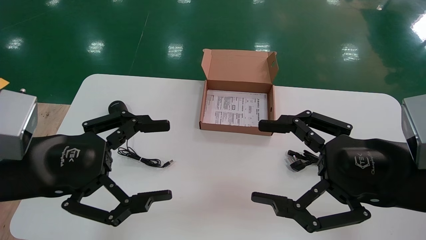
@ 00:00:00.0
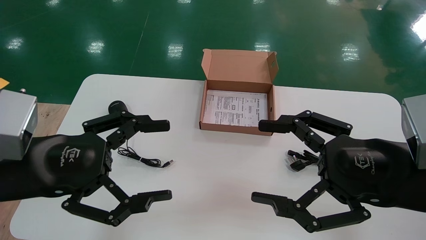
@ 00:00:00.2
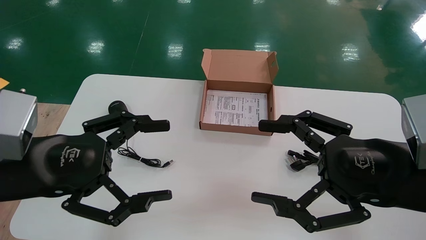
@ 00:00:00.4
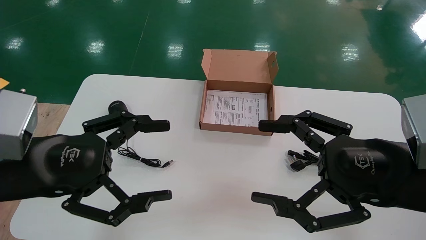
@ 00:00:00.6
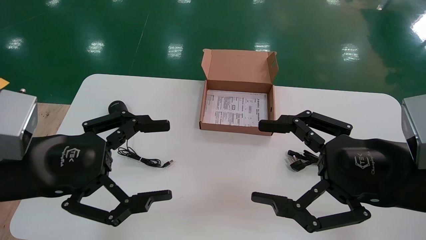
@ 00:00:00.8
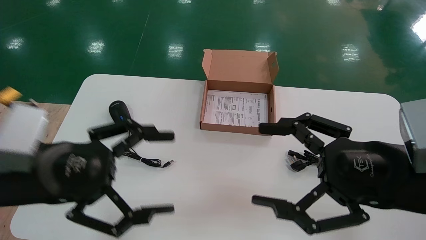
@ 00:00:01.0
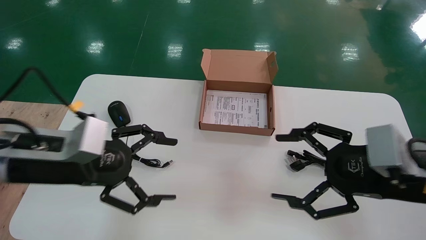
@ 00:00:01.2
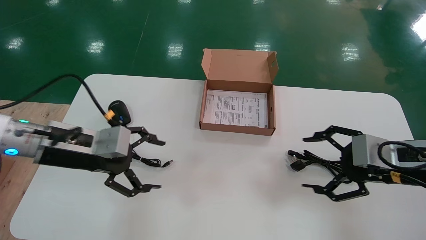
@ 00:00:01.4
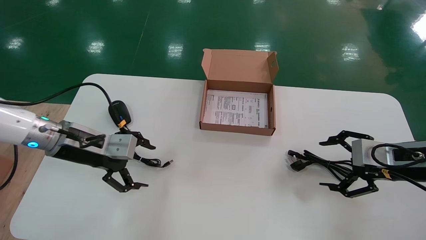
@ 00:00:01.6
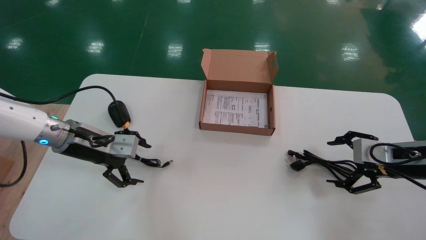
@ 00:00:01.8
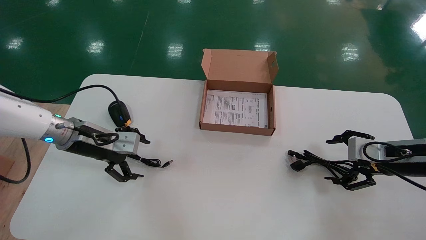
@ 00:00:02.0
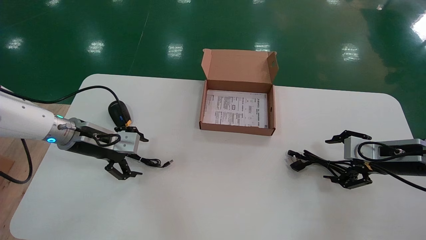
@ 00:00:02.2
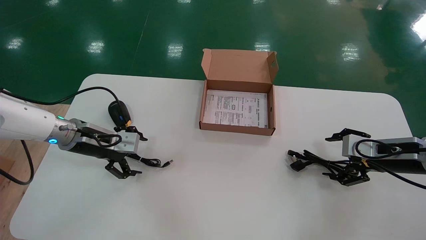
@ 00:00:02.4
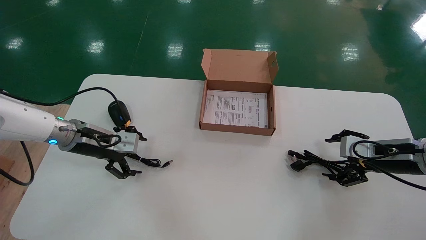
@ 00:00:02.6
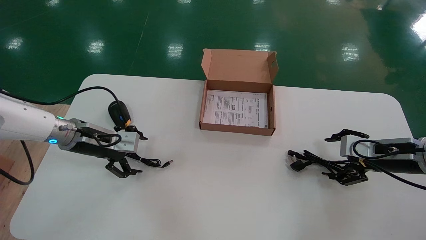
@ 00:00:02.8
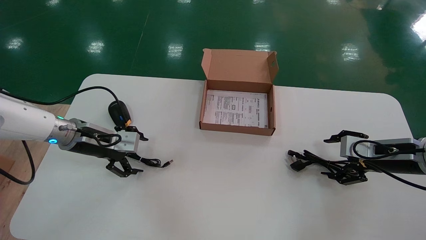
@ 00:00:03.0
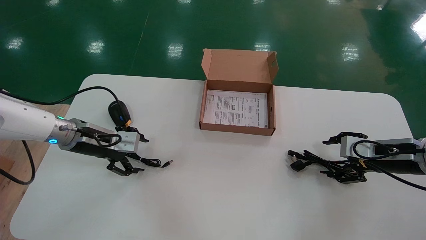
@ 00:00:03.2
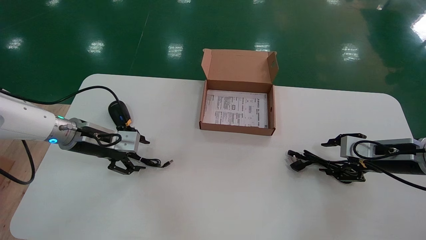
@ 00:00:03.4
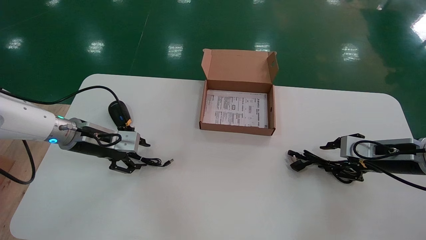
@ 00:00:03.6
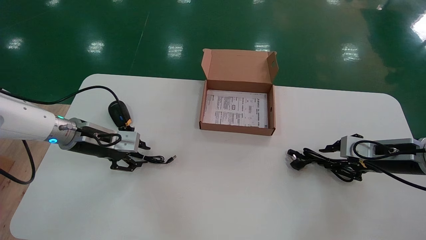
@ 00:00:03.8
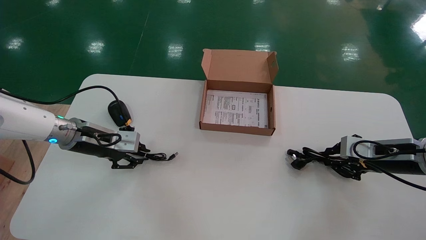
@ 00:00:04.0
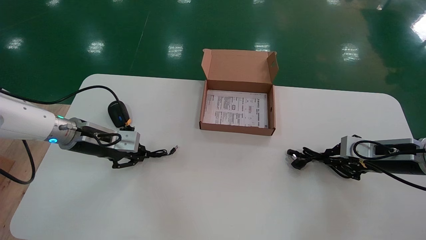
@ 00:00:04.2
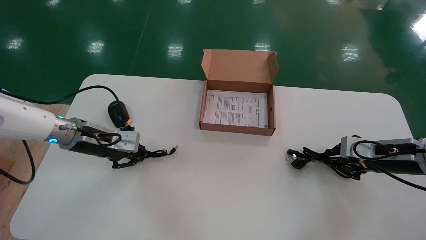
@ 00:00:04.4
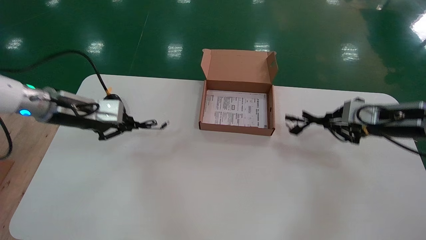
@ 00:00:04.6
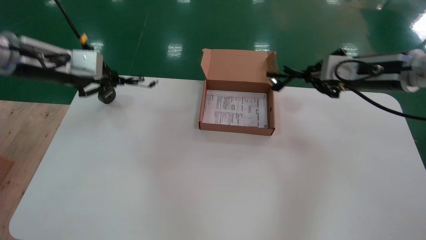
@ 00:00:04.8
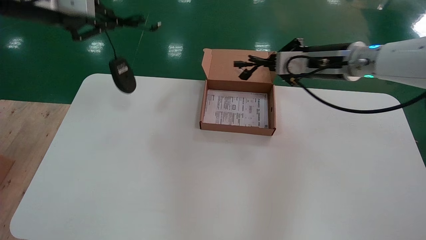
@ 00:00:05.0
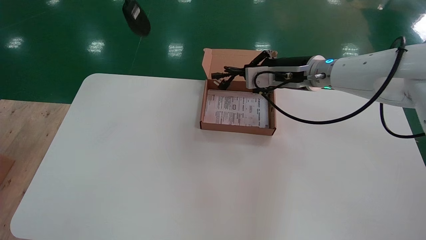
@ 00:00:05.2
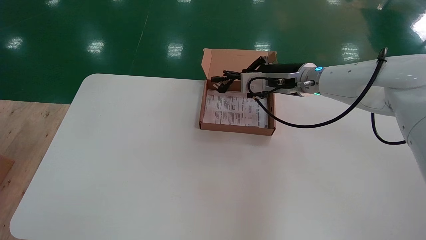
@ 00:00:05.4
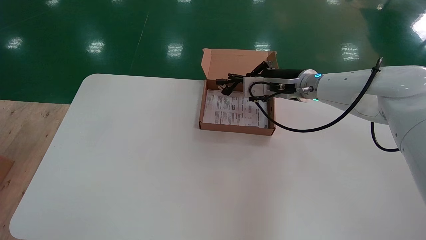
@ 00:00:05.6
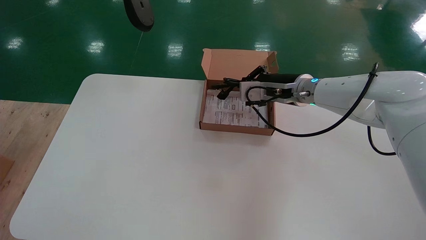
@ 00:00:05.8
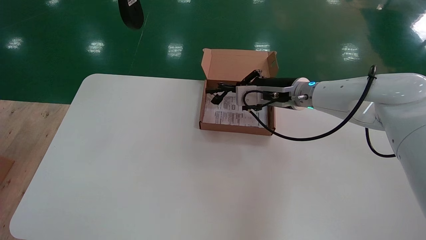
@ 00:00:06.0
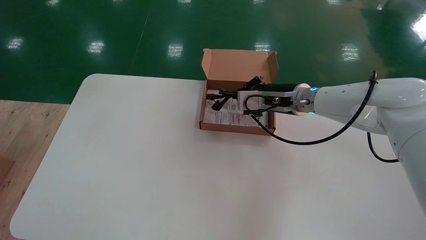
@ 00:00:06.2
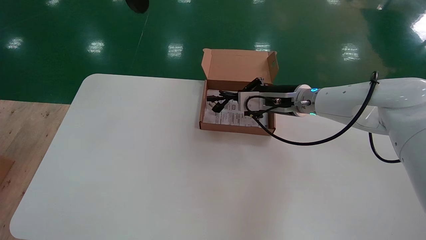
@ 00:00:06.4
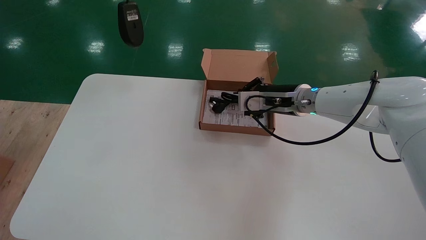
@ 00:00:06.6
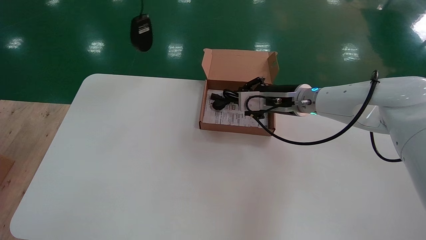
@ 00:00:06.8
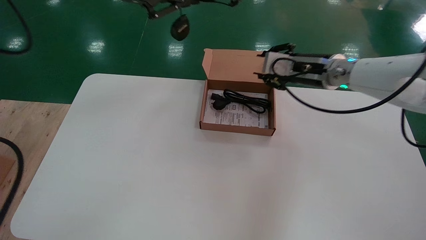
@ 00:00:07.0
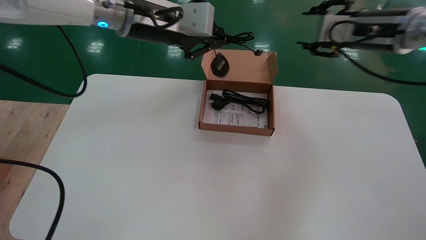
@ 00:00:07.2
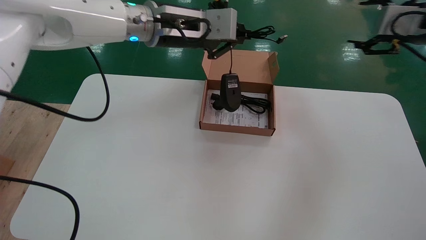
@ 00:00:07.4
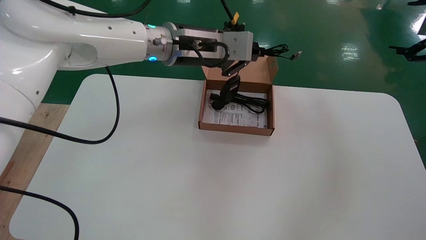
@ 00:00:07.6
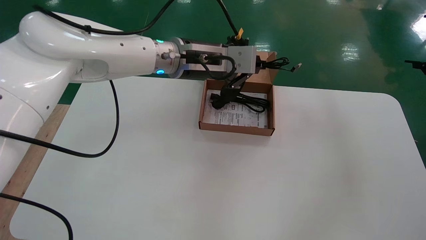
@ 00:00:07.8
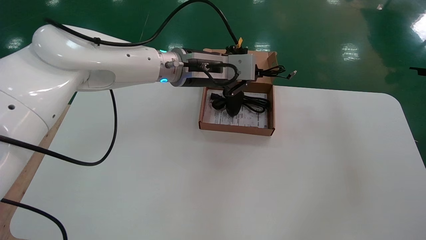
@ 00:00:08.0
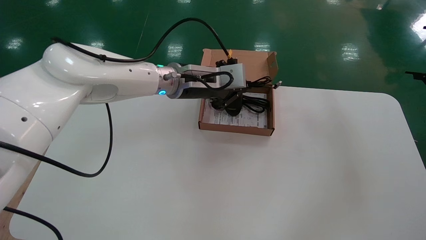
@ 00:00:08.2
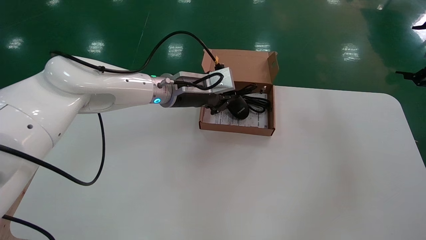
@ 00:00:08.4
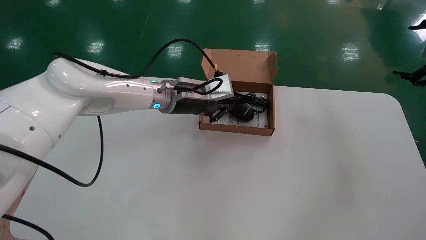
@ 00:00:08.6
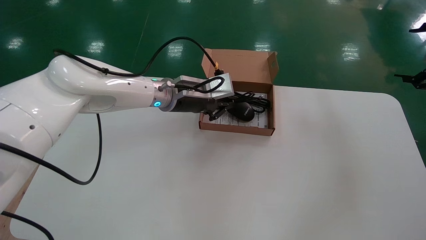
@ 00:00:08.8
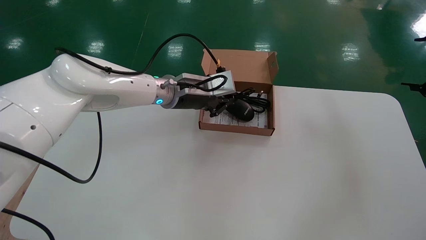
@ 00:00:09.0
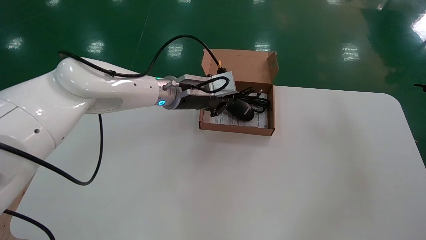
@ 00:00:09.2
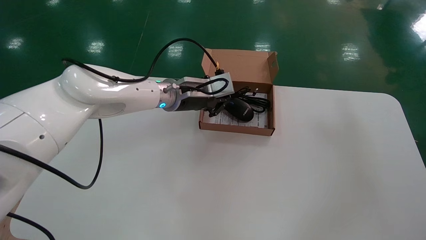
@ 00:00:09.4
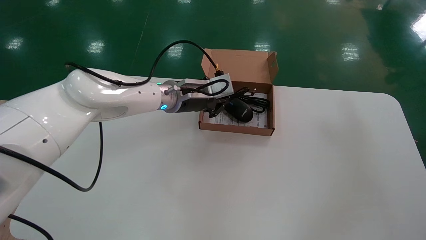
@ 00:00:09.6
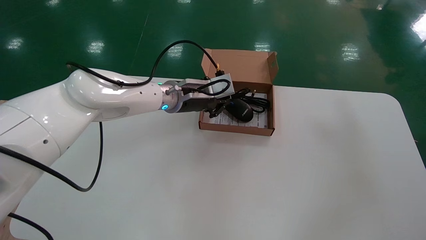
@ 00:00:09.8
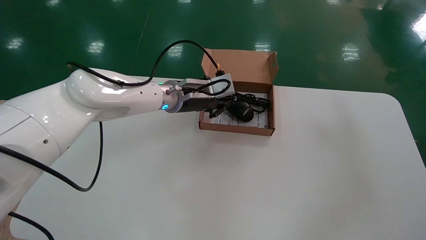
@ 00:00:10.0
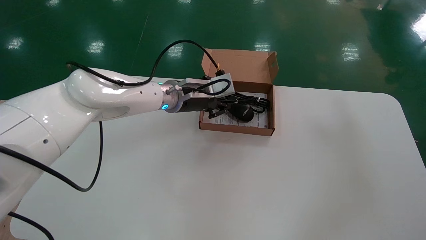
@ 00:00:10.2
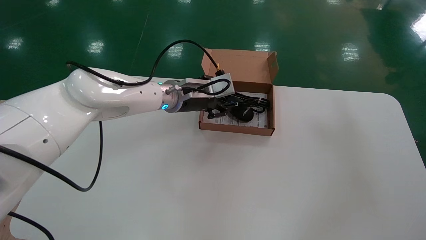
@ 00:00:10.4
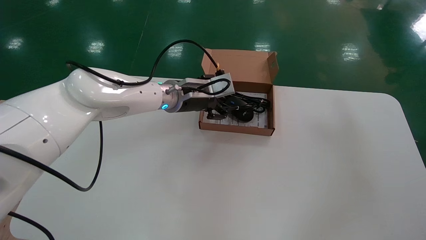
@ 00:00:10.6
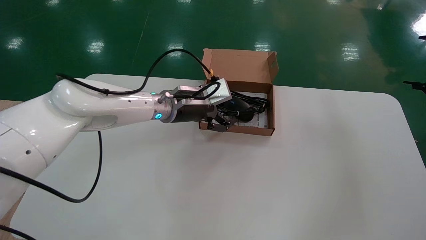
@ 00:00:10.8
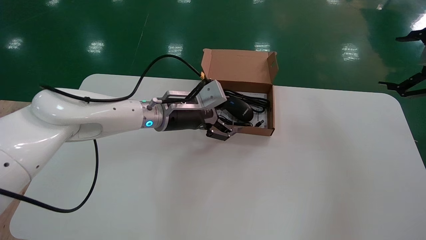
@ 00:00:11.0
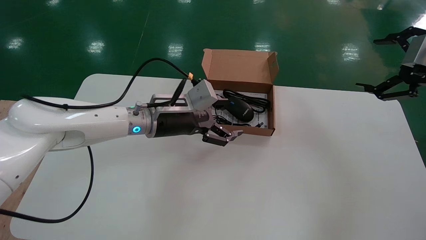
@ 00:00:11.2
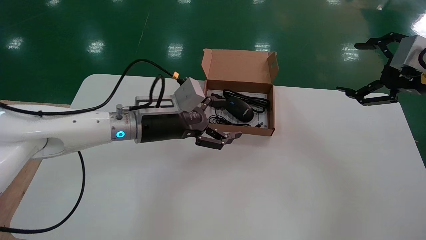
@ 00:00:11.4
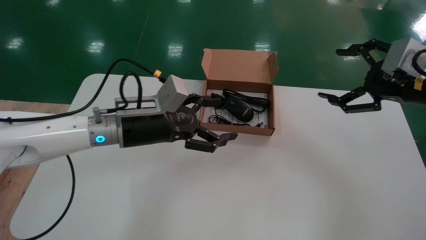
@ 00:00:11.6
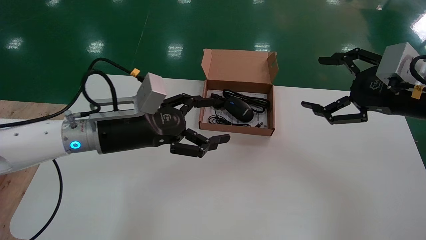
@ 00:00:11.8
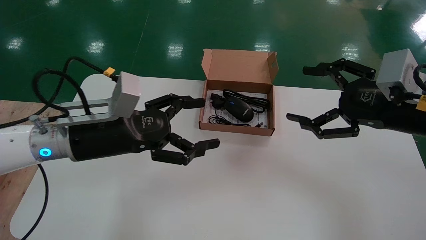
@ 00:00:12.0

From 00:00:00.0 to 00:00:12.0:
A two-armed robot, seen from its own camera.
Step, from 00:00:01.0 to 00:00:04.0: Simultaneously pick up the mouse and power cord from the accessory packaging area.
Step, from 00:00:04.2 to 00:00:10.2: Place the mouse and power cord into the box.
From 00:00:00.0 to 00:00:01.6: The left gripper moves forward, some 15 cm. Meanwhile the right gripper shifts some 20 cm forward, to the right and downward.
From 00:00:01.6 to 00:00:03.0: Both grippers move forward, about 5 cm.
From 00:00:03.0 to 00:00:04.4: The left gripper closes its fingers. Meanwhile the right gripper closes up.
From 00:00:04.4 to 00:00:06.0: The right gripper heads to the left and forward, covering about 25 cm. Meanwhile the left gripper travels upward by approximately 35 cm.
From 00:00:06.0 to 00:00:07.6: The left gripper goes some 30 cm to the right, downward and forward. The right gripper moves to the right, upward and backward, approximately 35 cm, and opens up.
From 00:00:07.6 to 00:00:09.0: The right gripper changes place by roughly 5 cm. The left gripper shifts some 10 cm downward.
From 00:00:09.0 to 00:00:10.4: The left gripper opens up.
From 00:00:10.4 to 00:00:12.0: The left gripper shifts some 20 cm backward and to the left, and opens up, while the right gripper goes some 20 cm to the left.

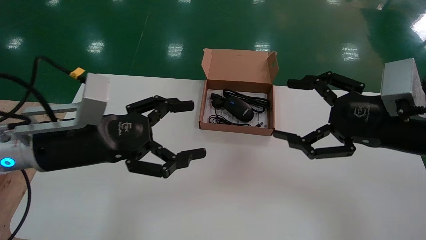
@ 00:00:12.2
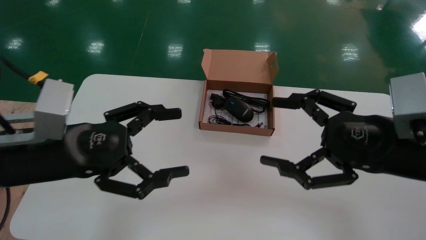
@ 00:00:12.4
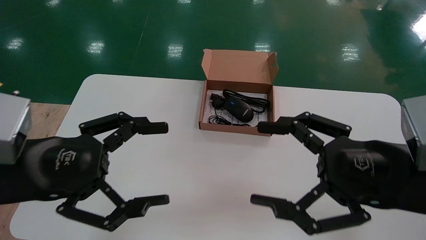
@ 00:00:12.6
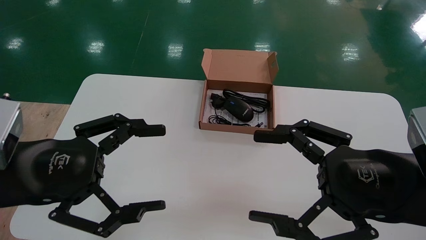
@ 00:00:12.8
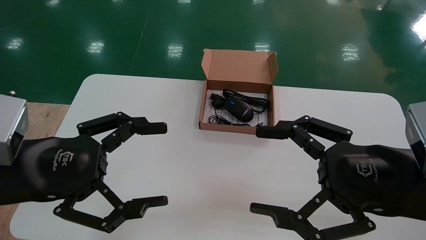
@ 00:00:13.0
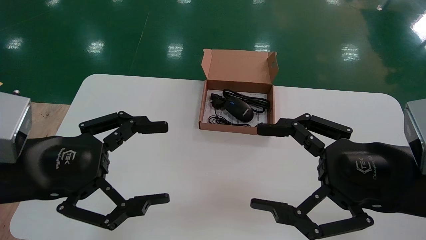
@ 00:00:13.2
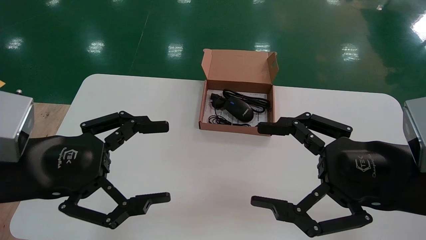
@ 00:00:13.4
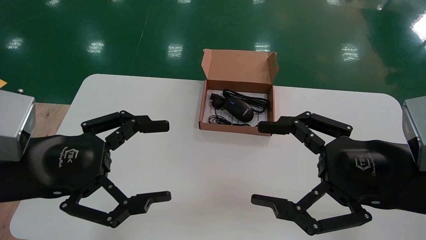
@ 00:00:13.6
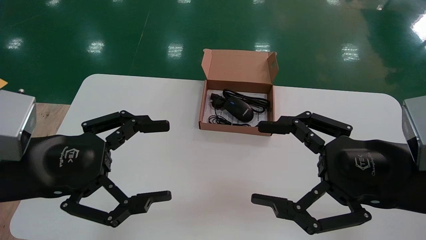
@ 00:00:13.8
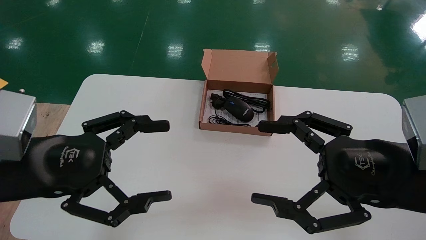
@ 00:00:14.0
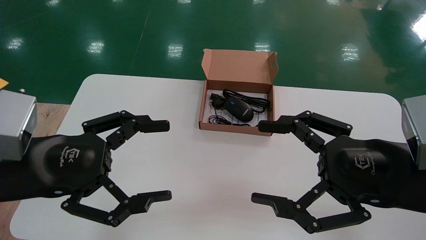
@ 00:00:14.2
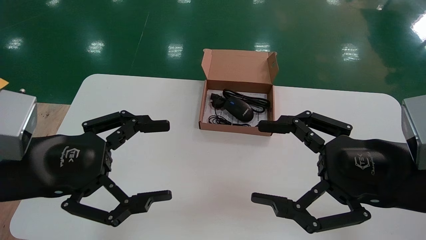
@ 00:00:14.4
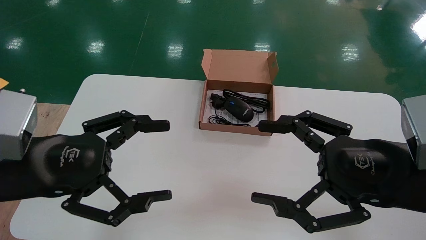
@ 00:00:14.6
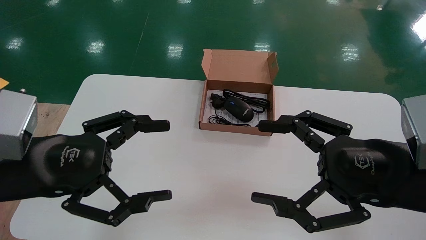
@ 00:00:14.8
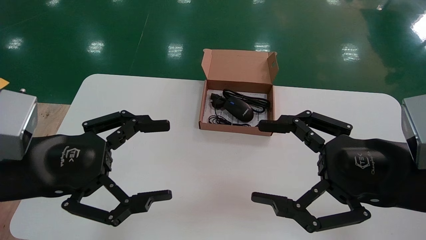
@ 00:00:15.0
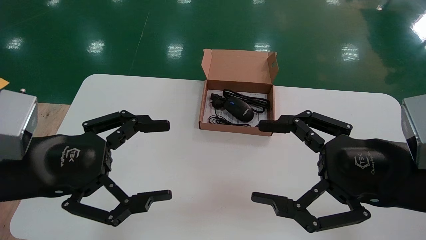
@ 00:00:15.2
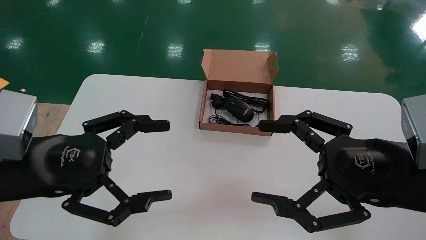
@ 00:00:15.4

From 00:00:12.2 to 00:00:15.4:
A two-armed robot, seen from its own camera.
From 00:00:12.2 to 00:00:13.8: The grippers both shift backward by approximately 5 cm.
From 00:00:13.8 to 00:00:15.4: Both grippers stay put.
